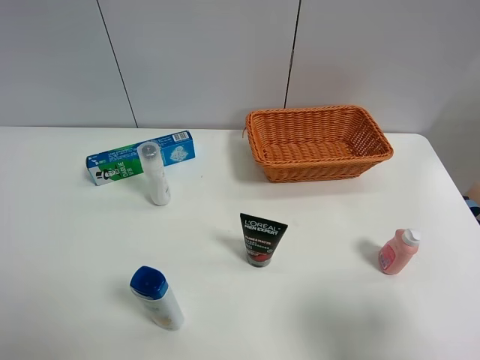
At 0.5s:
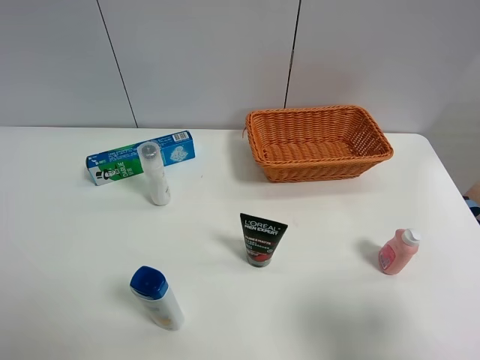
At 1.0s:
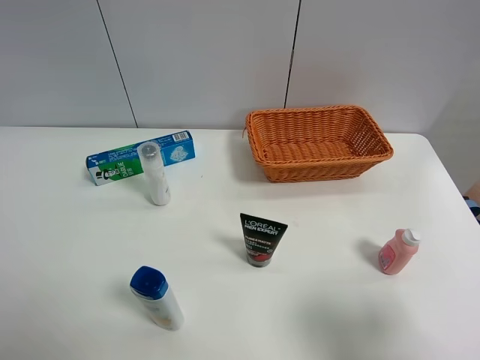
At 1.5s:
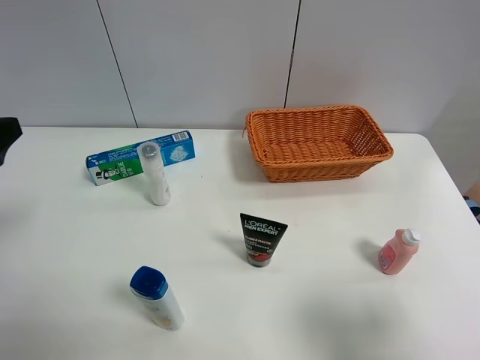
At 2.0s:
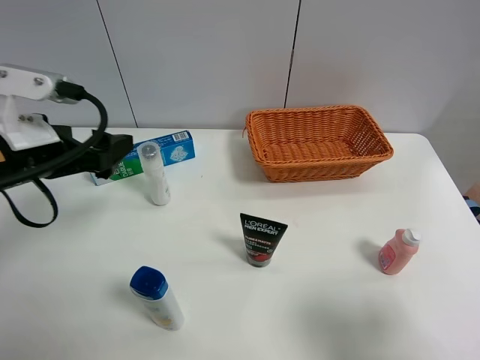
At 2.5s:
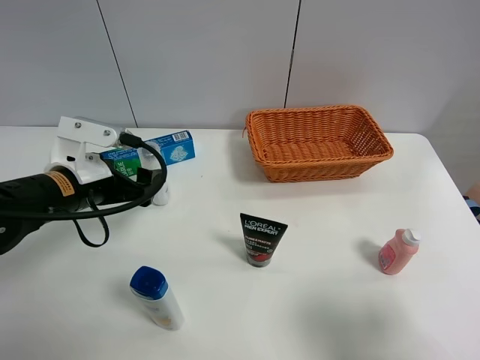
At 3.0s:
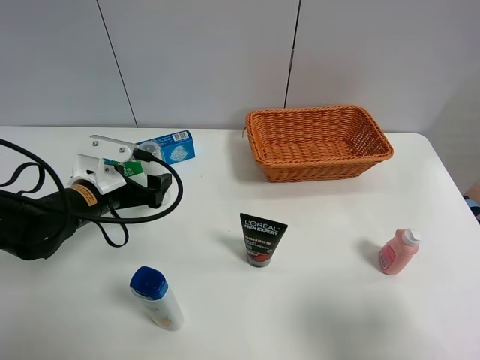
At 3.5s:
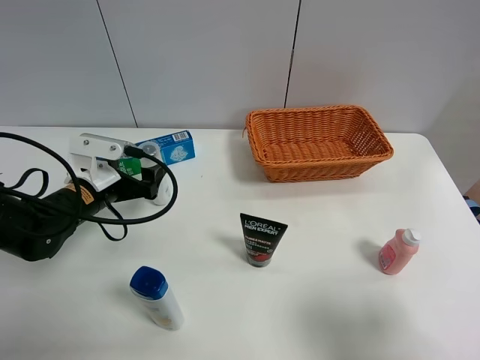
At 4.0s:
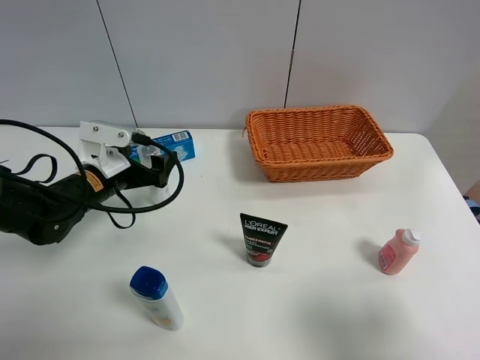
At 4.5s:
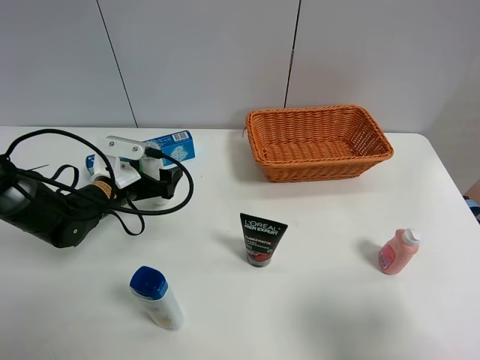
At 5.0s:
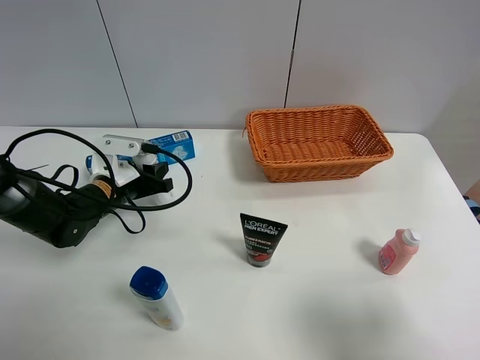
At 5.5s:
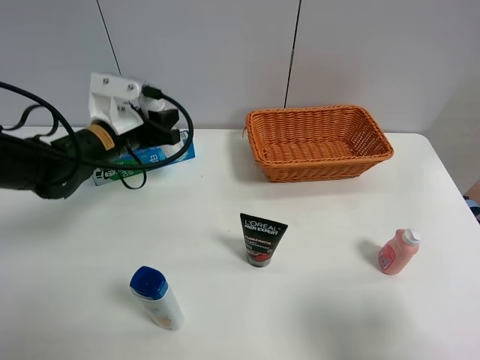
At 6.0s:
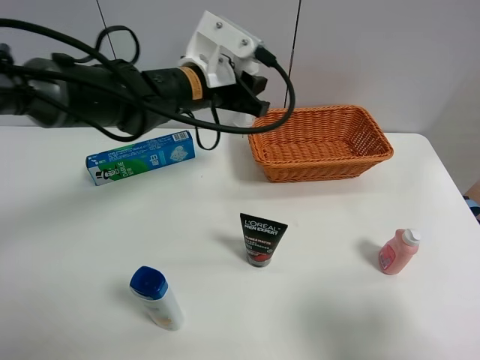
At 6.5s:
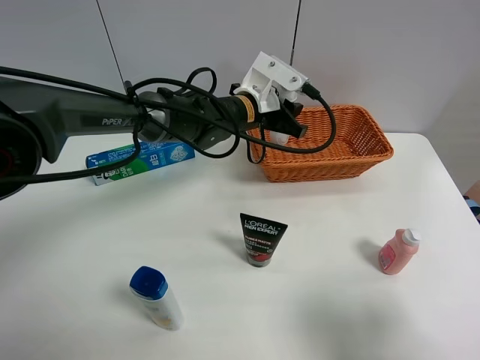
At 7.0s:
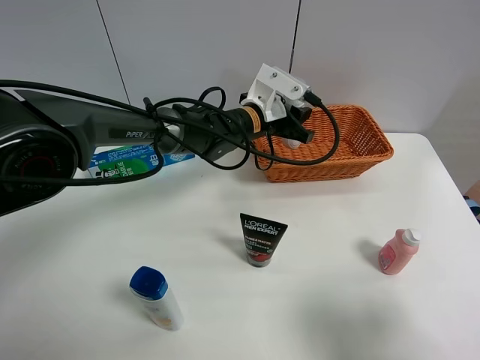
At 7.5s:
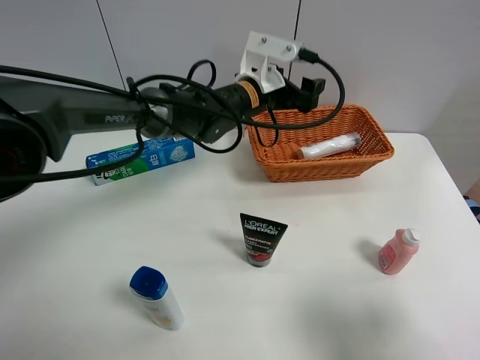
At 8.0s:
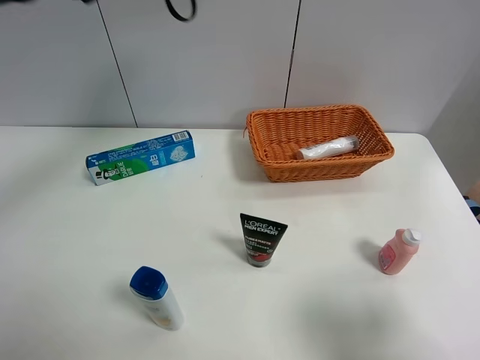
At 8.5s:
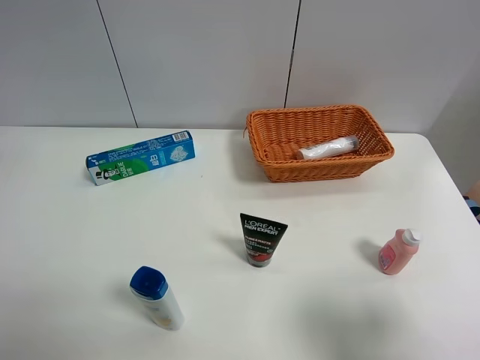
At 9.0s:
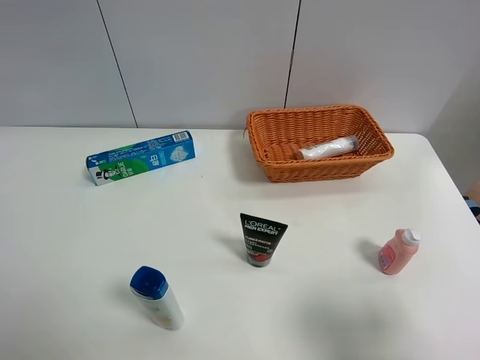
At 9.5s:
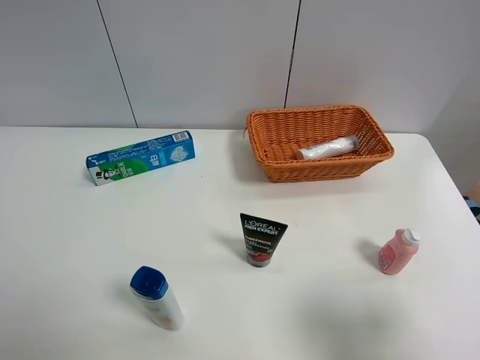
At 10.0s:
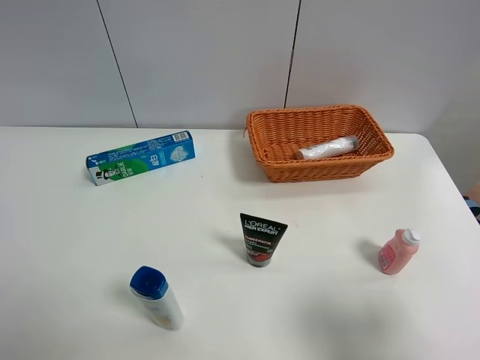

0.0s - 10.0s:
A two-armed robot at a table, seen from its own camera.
Task of the whole recording: Place the object closest to the toothpaste in the basket.
Step, 0.0s - 5.0s: Grasp the cleaning agent with left gripper.
Step, 5.5s - 7.5s: Place the cleaning agent in the basket with left gripper.
0.0s - 2.0s: The left gripper shifts about 25 cm forward and to the right.
2.0s - 4.0s: The left gripper goes about 15 cm downward and forward.
4.0s - 6.0s: The left gripper travels to the right and upward by about 20 cm, and closes.
6.0s - 8.0s: The left gripper travels upward by roughly 20 cm, and opens.
8.0s - 10.0s: The left gripper travels backward, to the left and downward by approximately 40 cm.
